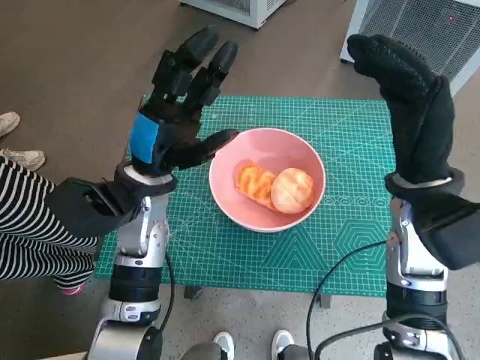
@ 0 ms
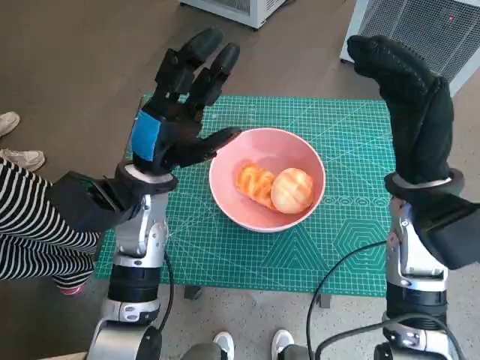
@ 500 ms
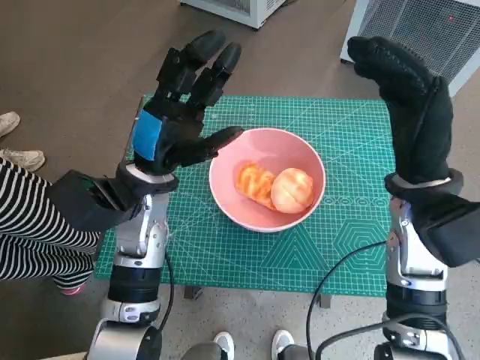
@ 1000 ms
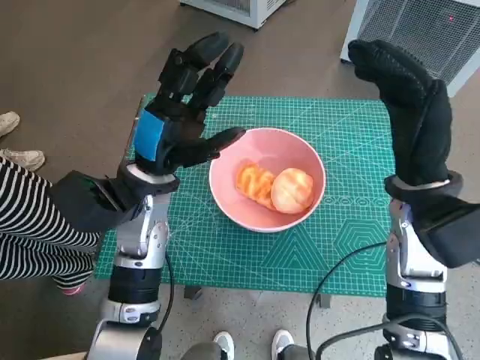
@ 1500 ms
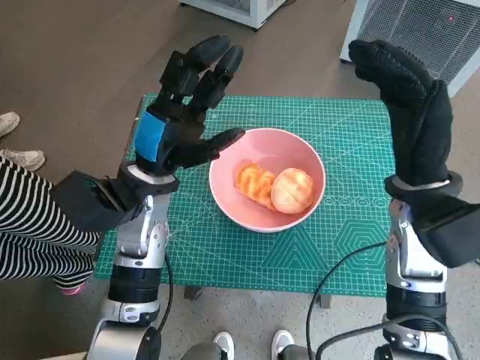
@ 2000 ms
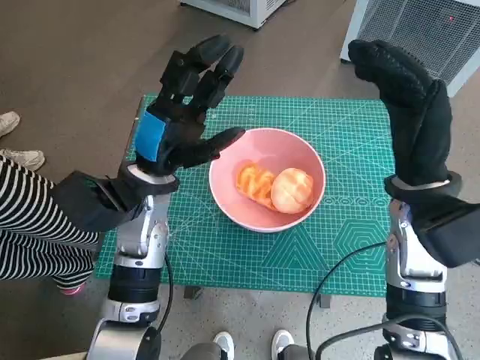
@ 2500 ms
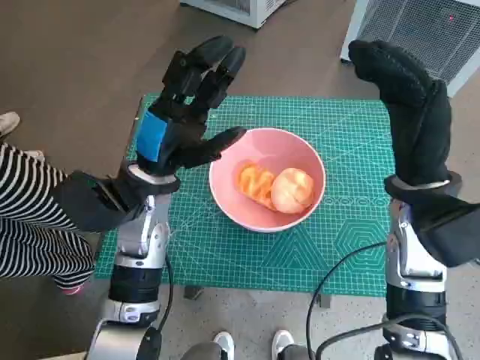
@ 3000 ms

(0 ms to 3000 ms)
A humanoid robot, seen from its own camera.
Task of the whole recording: Push the bowl into the center of the table and put the bread into the bowl.
0 ms - 3000 ms: Both hands stay about where they are.

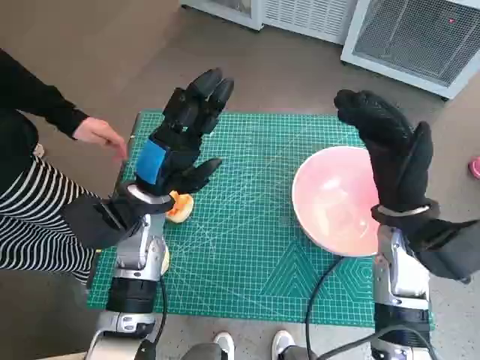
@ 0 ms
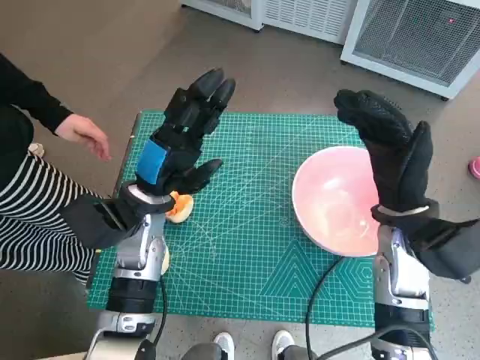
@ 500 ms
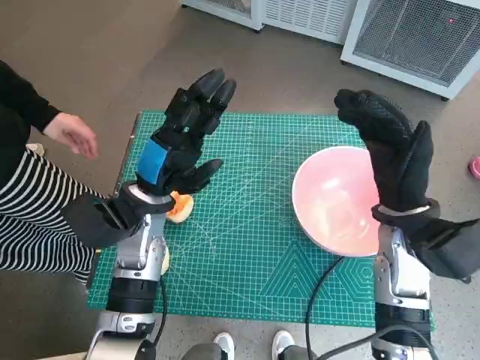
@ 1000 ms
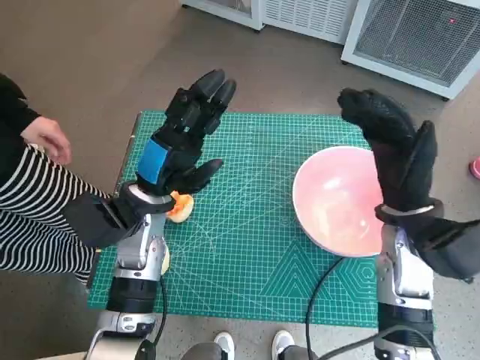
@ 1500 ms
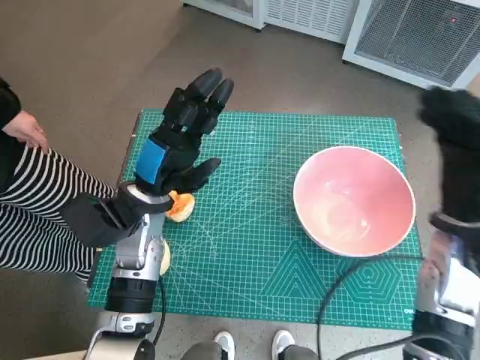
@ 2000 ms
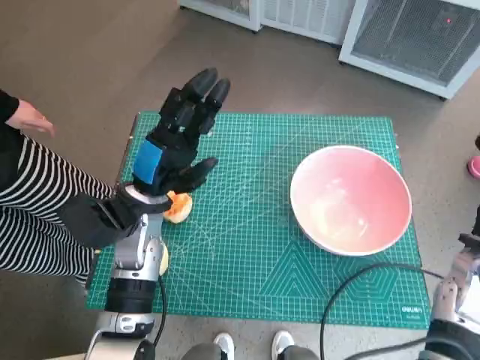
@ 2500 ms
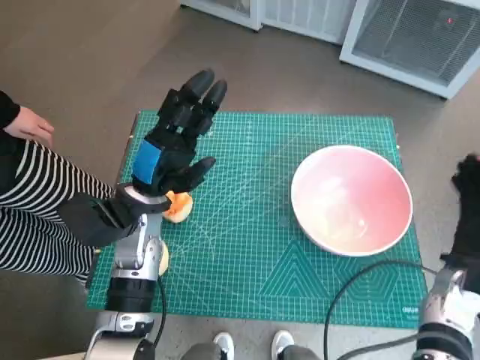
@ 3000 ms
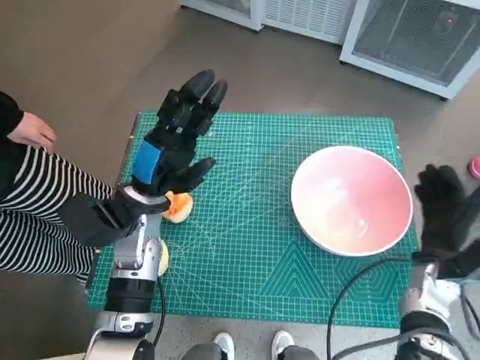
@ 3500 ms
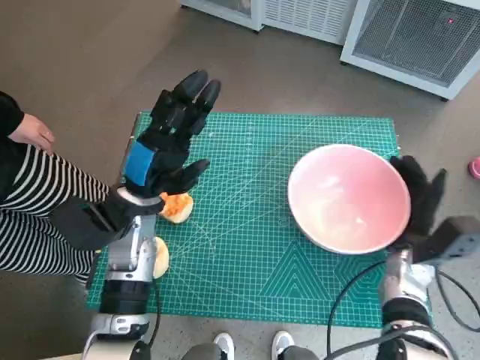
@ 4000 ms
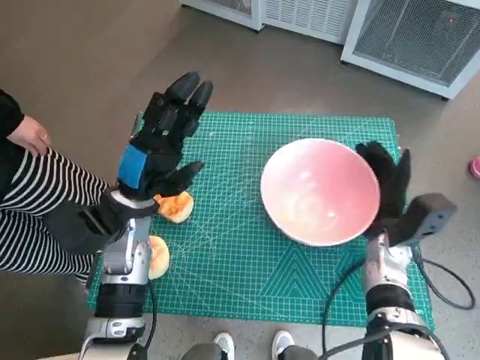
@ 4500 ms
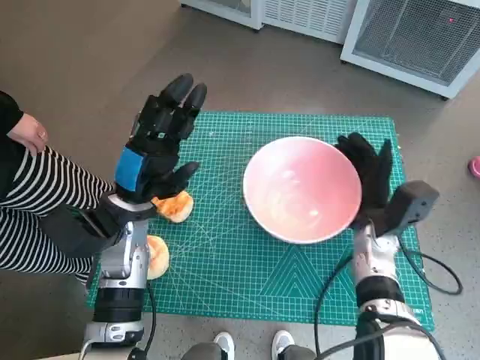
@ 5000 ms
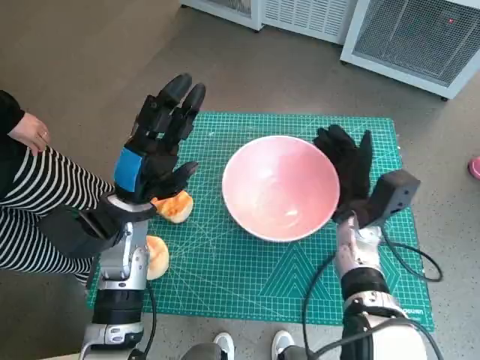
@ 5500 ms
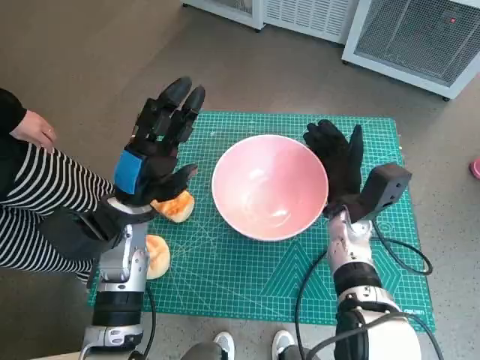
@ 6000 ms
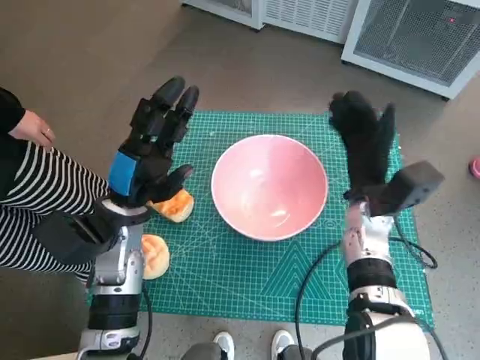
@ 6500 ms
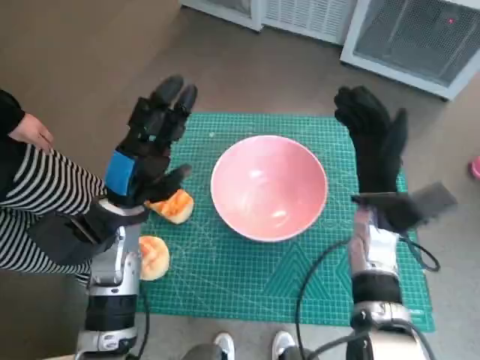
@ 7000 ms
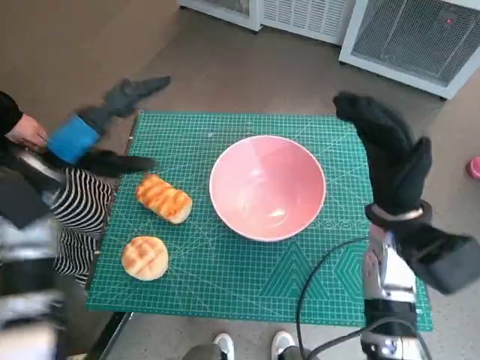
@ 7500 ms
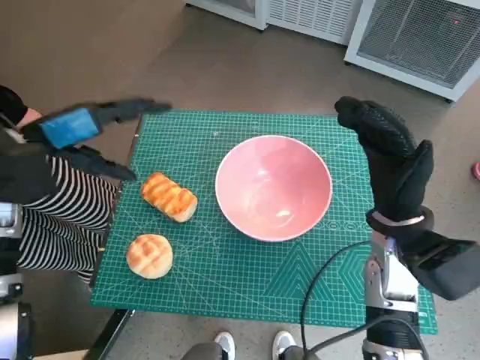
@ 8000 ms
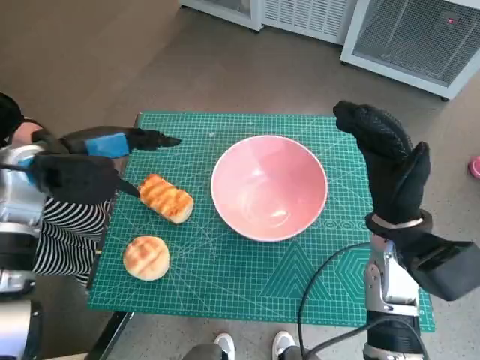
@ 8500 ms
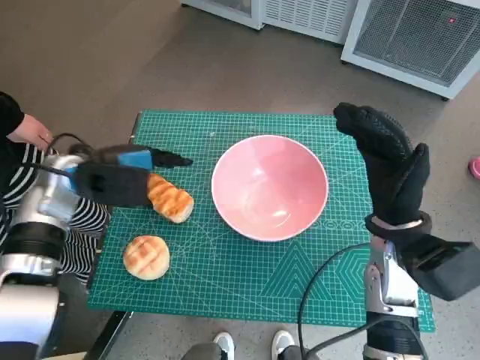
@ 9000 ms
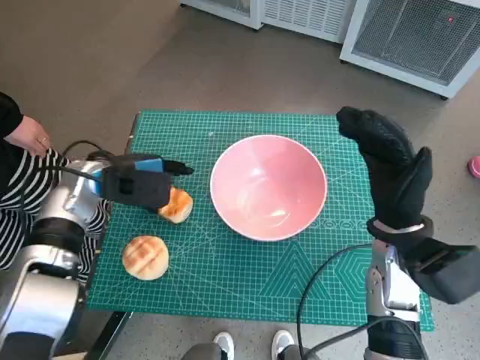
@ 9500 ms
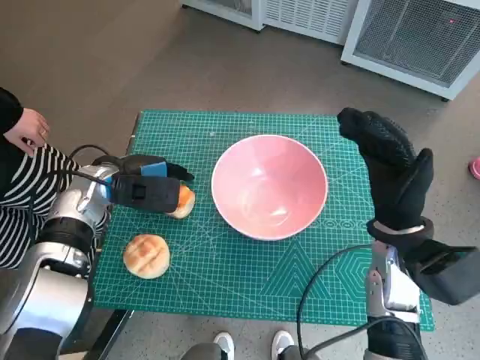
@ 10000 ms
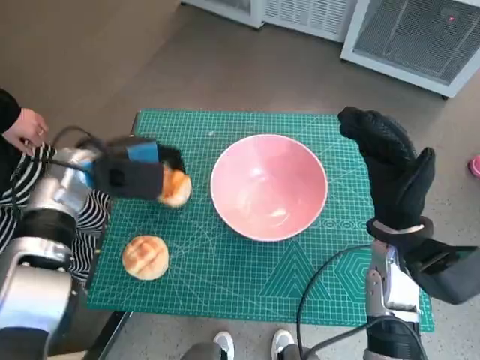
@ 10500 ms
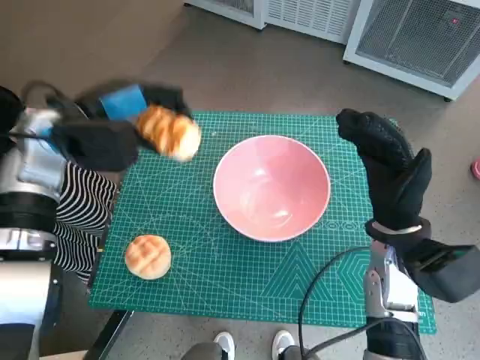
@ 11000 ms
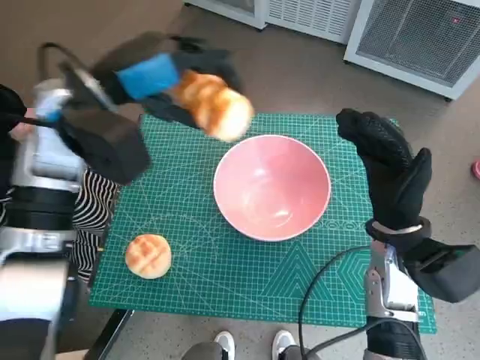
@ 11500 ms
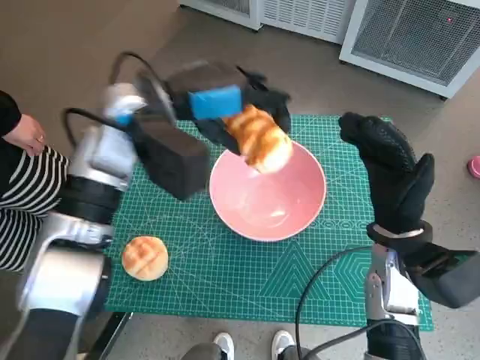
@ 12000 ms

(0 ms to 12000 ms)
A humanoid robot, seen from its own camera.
Task of the whole recording: Push the bowl into the center of the table and put the bread into the bowl.
Step, 0 ms - 6000 ms: Move the pink bowl to the center of table with right hand.
Step, 6500 ms - 10000 ms: Grasp the long bread with left hand.
2000 ms - 4000 ms: The right hand goes some 10 cm downward.
4000 ms - 6000 ms: The right hand is displaced to the left by about 10 cm.
6000 ms - 8000 ms: The left hand is displaced upward and to the left by approximately 15 cm. The right hand shifts roughly 10 cm upward and backward.
8000 ms - 10000 ms: The left hand goes about 15 cm downward and to the right.
10000 ms - 12000 ms: The left hand heads upward and to the right, covering some 15 cm.

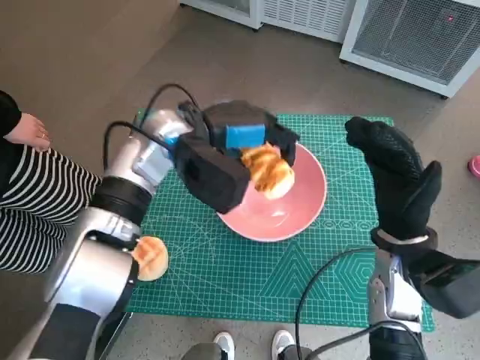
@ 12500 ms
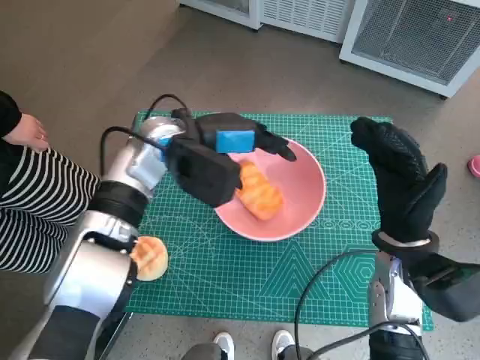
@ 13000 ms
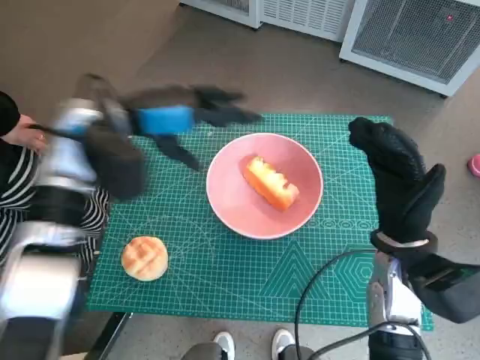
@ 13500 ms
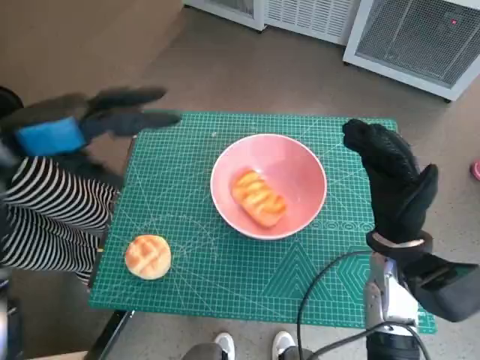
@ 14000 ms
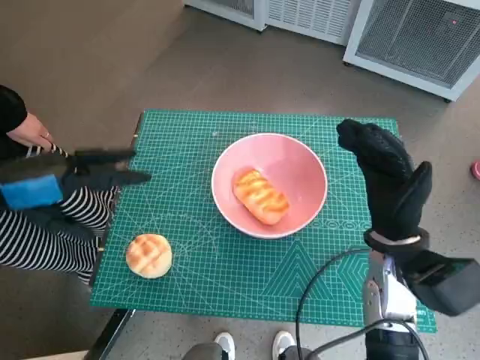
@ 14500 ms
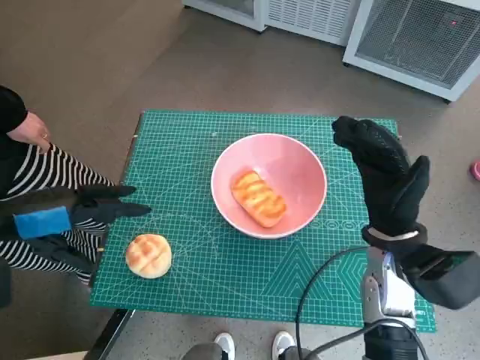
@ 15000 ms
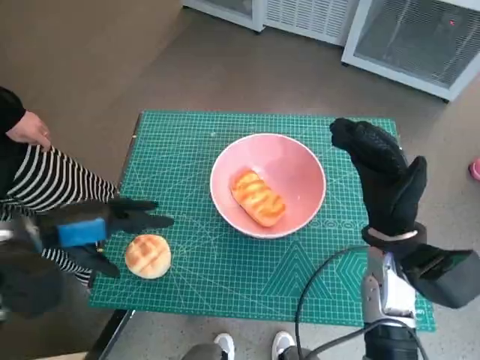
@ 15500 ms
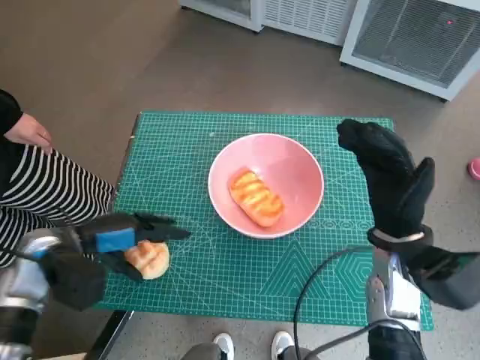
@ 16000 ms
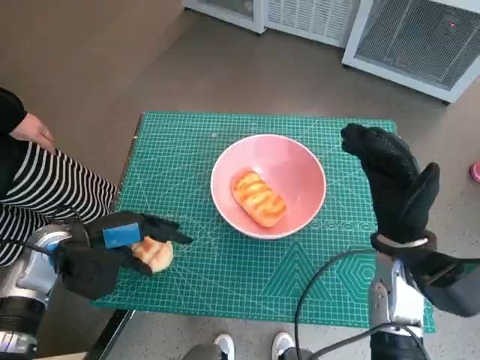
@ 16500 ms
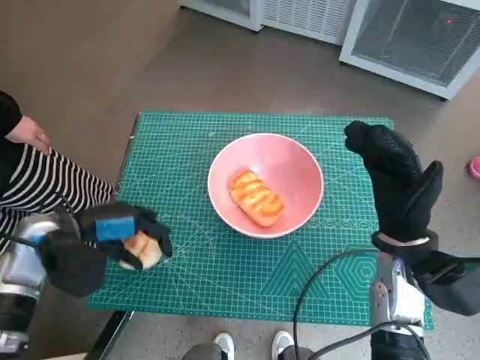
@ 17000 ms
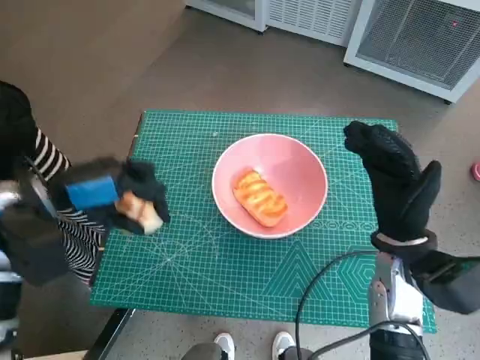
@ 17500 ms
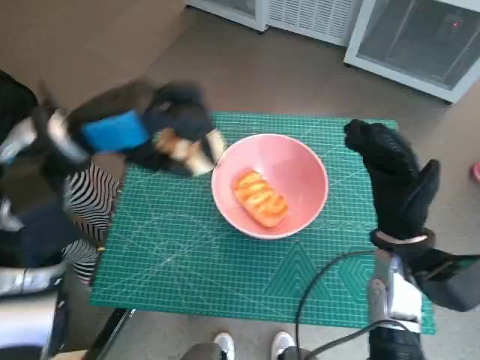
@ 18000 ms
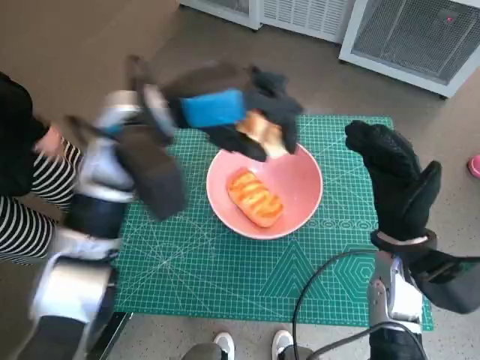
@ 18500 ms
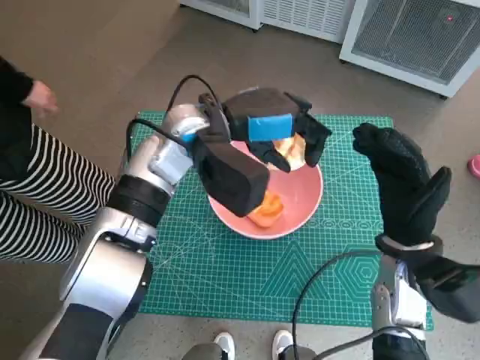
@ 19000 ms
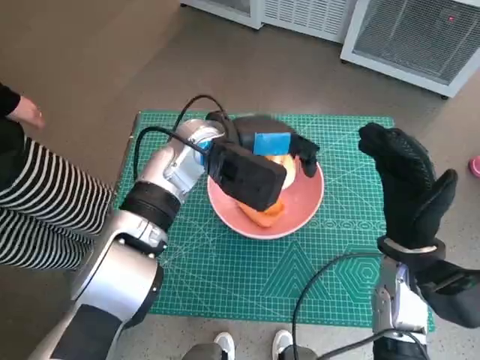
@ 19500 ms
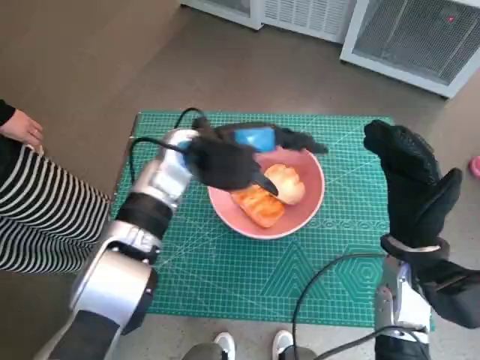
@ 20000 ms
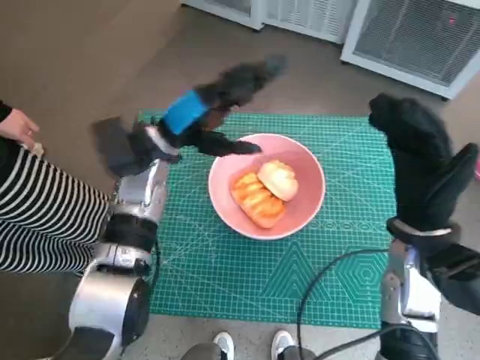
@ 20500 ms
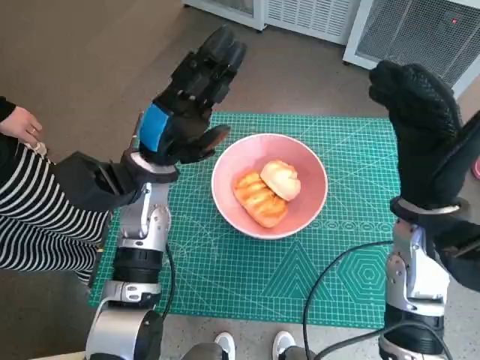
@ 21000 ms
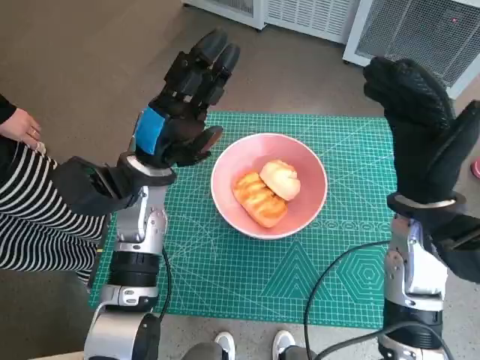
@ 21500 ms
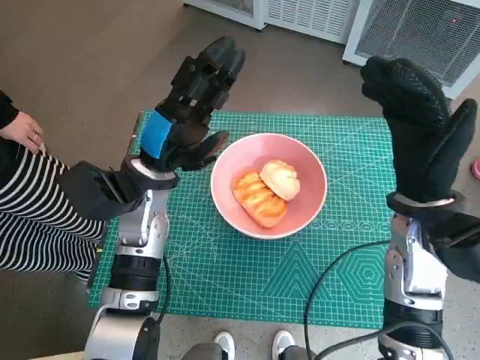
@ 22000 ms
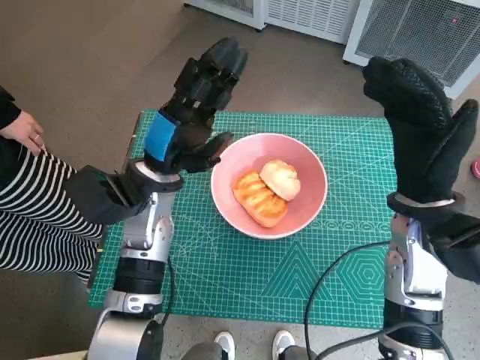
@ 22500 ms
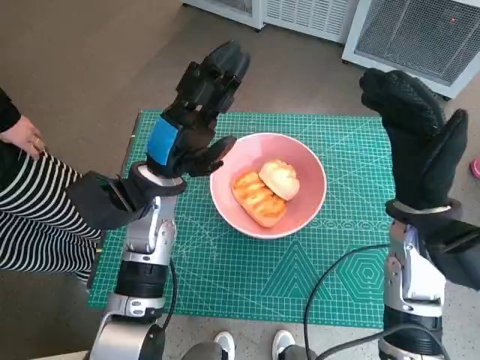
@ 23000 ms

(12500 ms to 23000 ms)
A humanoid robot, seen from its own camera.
Task of the whole recording: Push the bowl into the center of the table and put the bread into the bowl.
Step, 13500 ms - 16500 ms: Grasp the round bread with left hand.
Step, 17000 ms - 20000 ms: Place the round bread in pink bowl with left hand.
12500 ms - 14500 ms: The left hand goes some 25 cm to the left and backward.
14500 ms - 16500 ms: The left hand travels downward by about 15 cm.
16500 ms - 19000 ms: The left hand moves to the right, upward and forward, about 25 cm.
19000 ms - 21000 ms: The left hand travels to the left and downward by approximately 10 cm. Meanwhile the right hand heads upward, covering approximately 5 cm.
